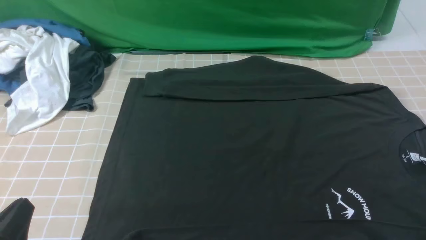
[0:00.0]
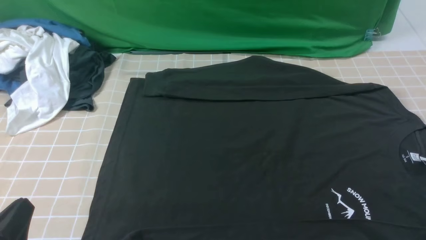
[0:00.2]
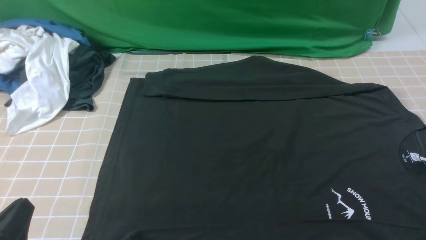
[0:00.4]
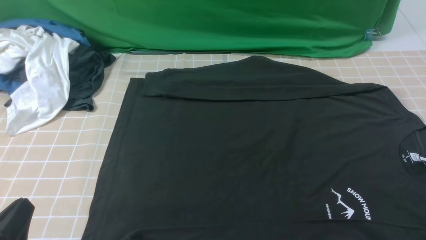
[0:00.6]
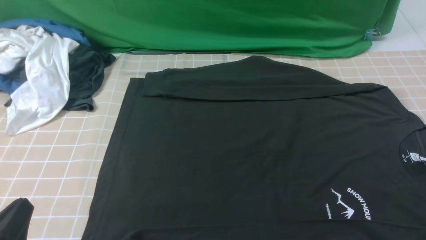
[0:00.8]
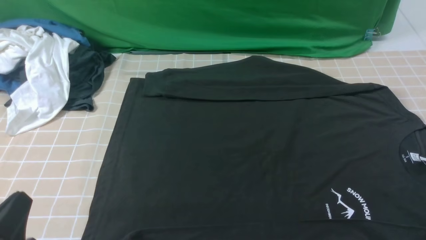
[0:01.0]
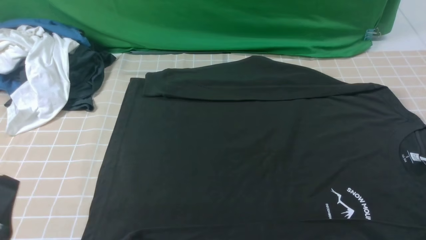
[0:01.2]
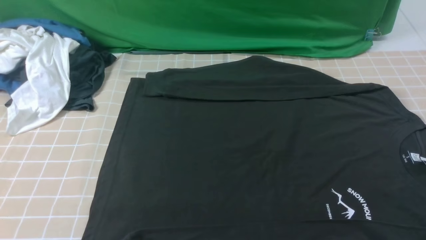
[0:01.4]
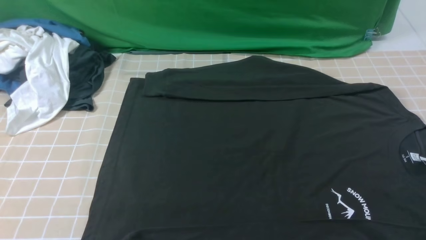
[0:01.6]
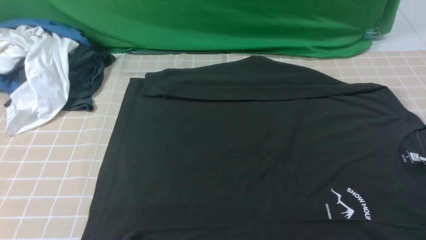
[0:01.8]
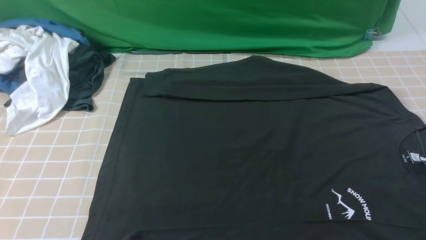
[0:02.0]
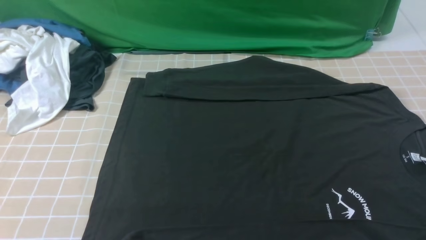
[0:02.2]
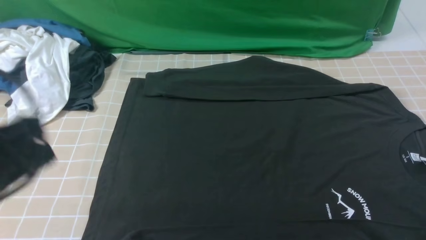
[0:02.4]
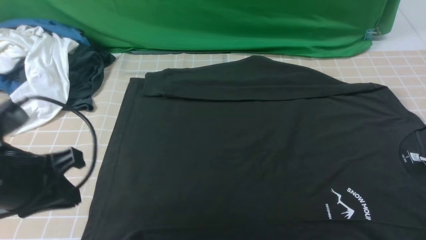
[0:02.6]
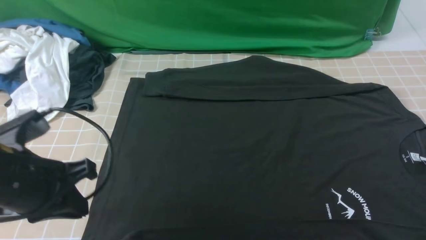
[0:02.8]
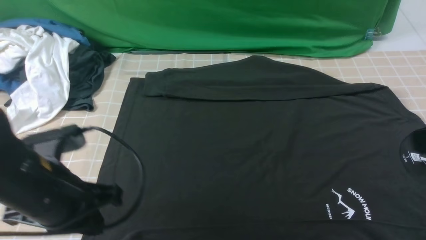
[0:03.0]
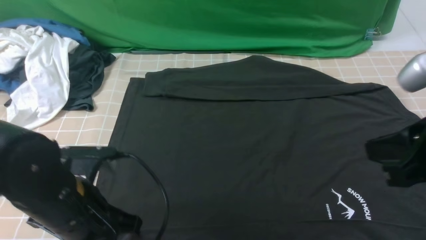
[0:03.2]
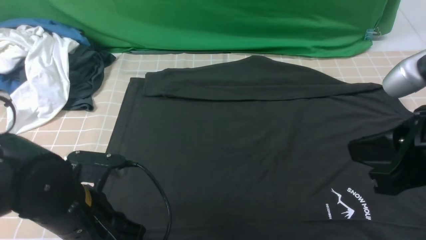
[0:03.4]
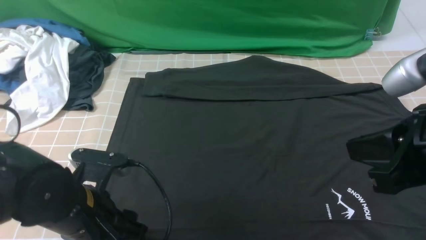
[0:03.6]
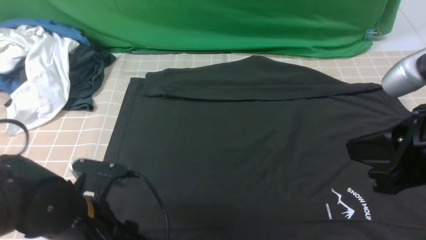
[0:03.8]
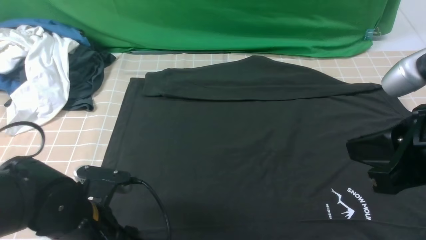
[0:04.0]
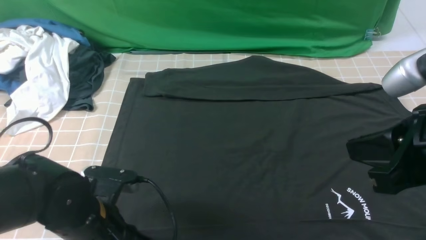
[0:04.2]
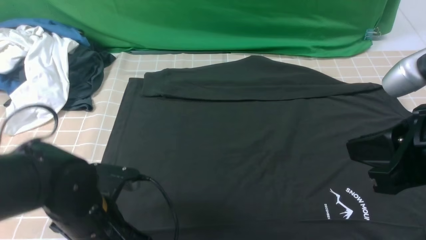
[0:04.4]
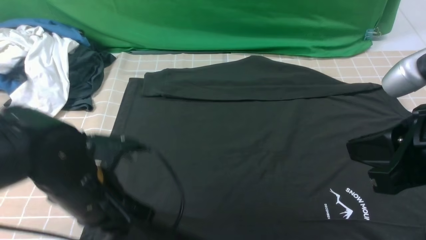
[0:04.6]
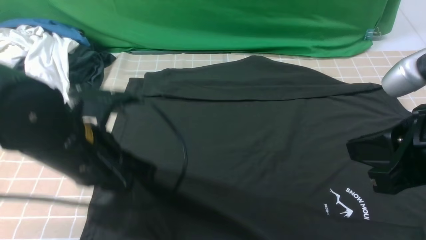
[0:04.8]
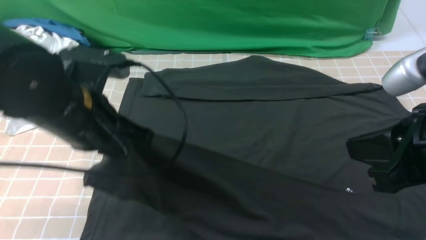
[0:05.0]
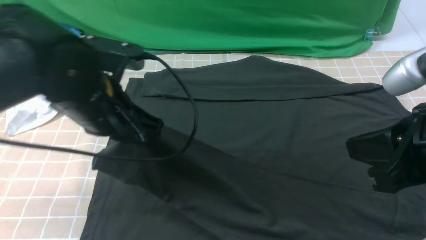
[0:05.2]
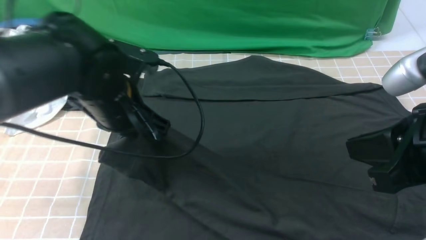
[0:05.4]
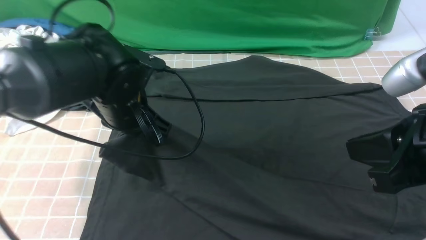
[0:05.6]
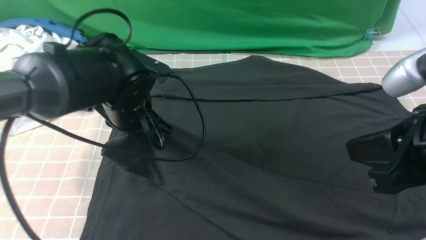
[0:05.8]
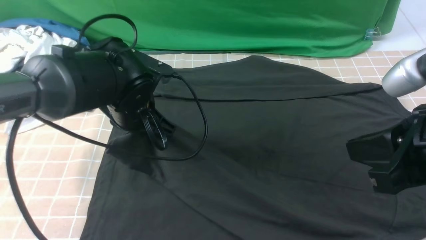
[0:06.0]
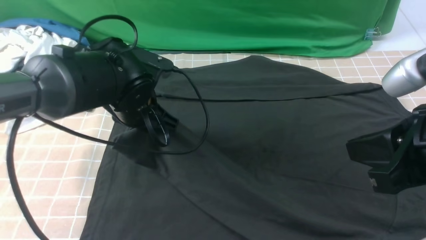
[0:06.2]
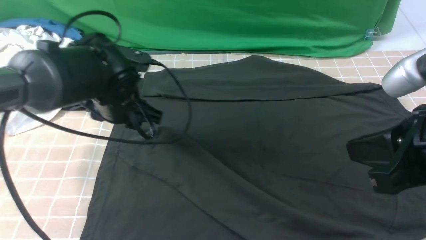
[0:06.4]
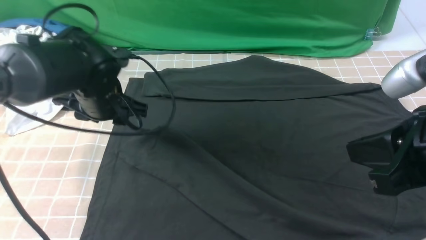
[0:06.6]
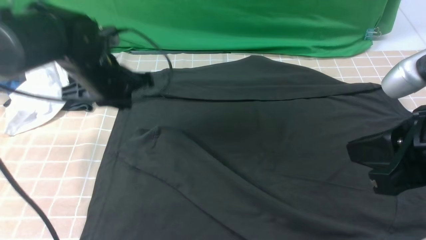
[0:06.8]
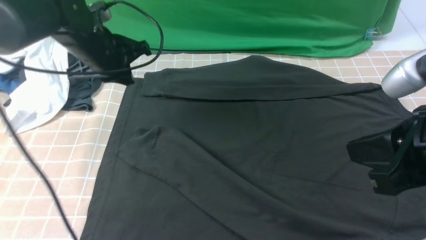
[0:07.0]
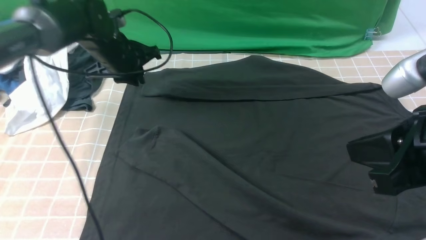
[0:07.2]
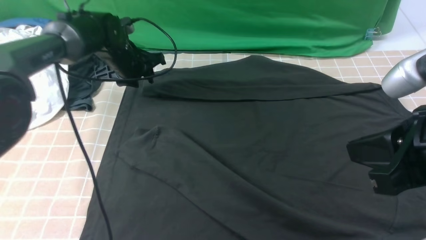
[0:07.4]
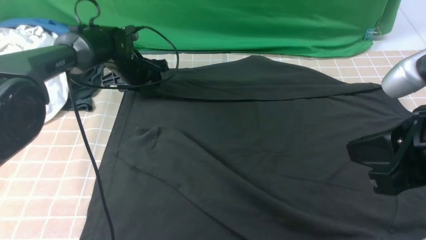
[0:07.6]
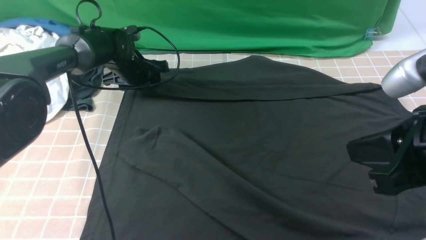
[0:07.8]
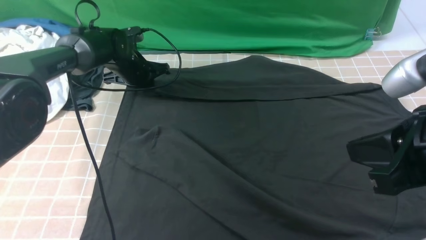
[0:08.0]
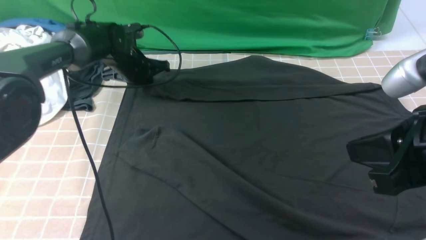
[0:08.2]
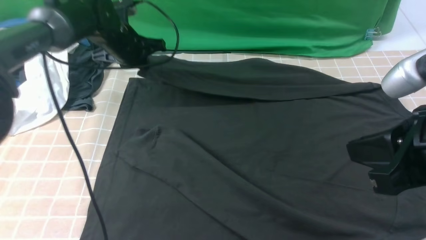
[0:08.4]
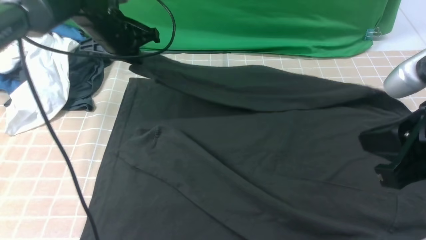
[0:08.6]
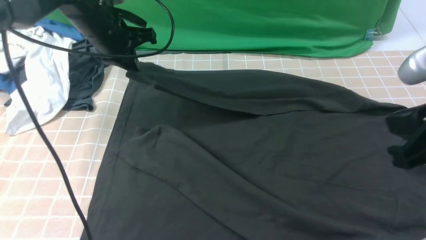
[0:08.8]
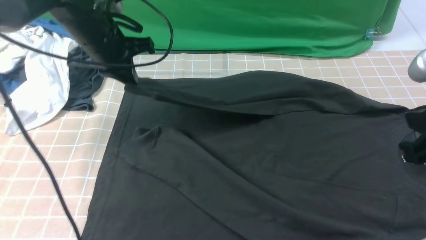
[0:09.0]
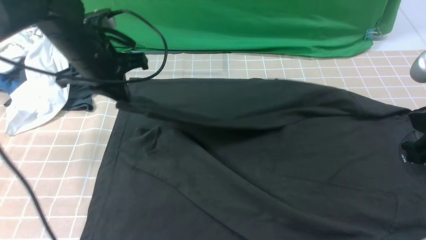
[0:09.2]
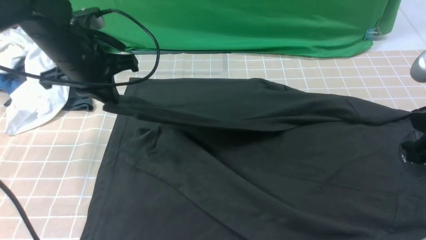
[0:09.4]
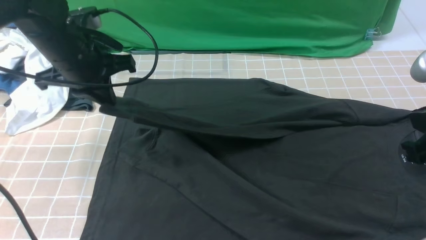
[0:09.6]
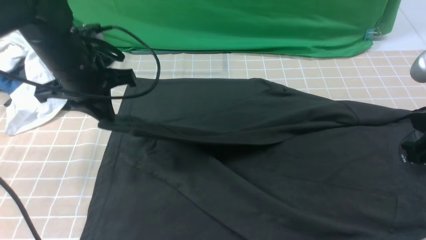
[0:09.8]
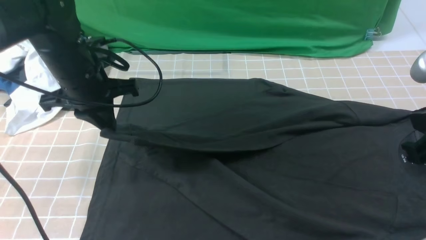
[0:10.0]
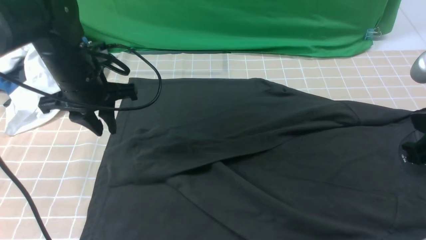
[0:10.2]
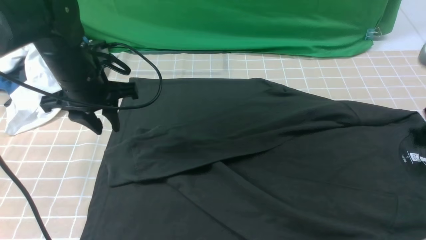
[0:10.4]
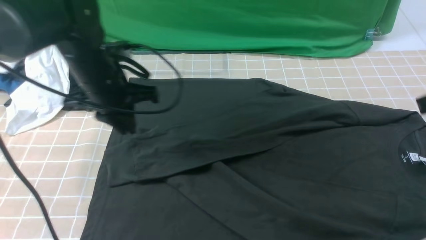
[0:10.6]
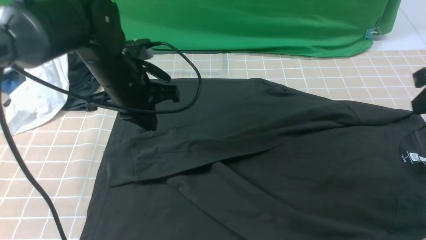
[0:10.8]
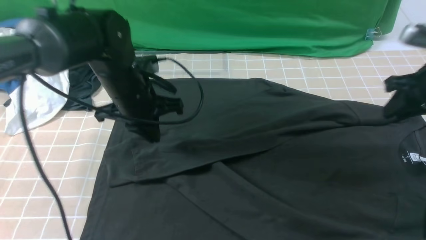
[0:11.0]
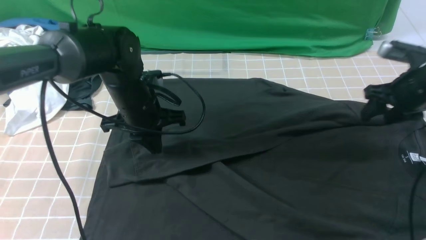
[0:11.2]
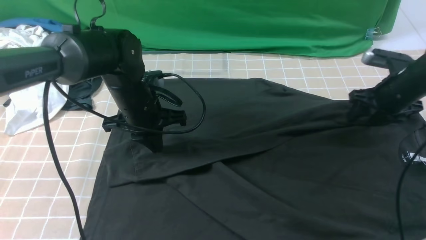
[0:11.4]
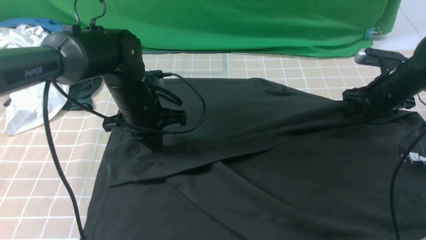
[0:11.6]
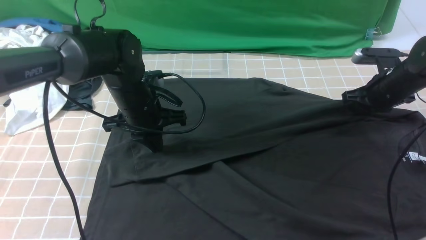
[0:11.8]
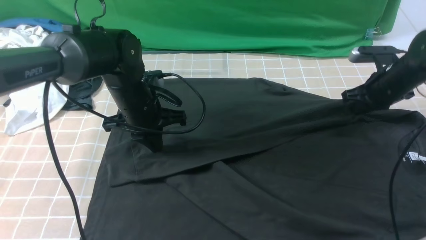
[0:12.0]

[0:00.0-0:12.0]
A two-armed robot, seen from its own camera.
Step, 0.0 to 4.4 s: use the left arm to clamp the cuff closest to it.
Step, 4.6 to 6.2 s: use the left arm to drag and place the cuff at the centered position on the left edge of the fabric.
Step, 6.6 to 8.2 s: use the left arm to clamp the cuff farthest from it.
Step, 8.4 to 10.4 s: use the left arm to drag and drop the cuff onto the cuff closest to the left arm.
1.6 to 3.0 s: The left gripper shifts some 15 cm forward and to the right.
3.0 to 4.4 s: The left gripper heads downward, covering some 5 cm, and opens, then closes again.
4.4 to 6.0 s: The left gripper moves forward, some 15 cm.
6.0 to 7.6 s: The left gripper travels forward by roughly 15 cm, and opens its fingers.
7.6 to 9.0 s: The left gripper heads upward and backward, covering roughly 15 cm, and closes its fingers.
9.0 to 10.4 s: The left gripper ends up roughly 5 cm from where it was.
10.4 to 12.0 s: The right gripper moves forward and downward, approximately 30 cm, and opens and closes again; the left gripper travels downward and to the right by about 10 cm, and closes.

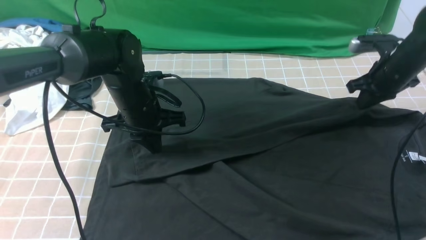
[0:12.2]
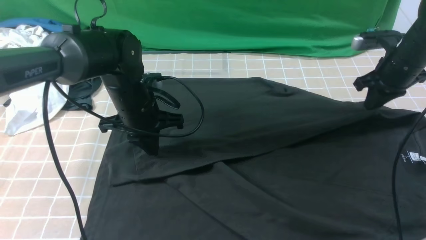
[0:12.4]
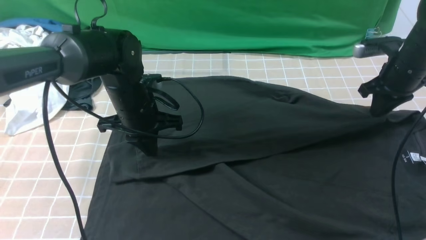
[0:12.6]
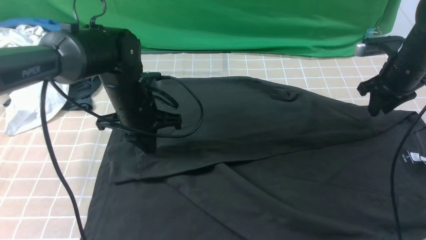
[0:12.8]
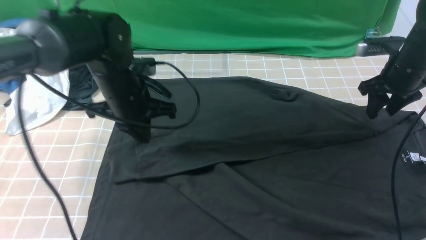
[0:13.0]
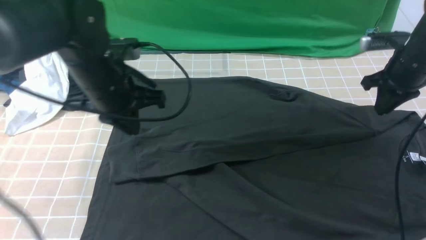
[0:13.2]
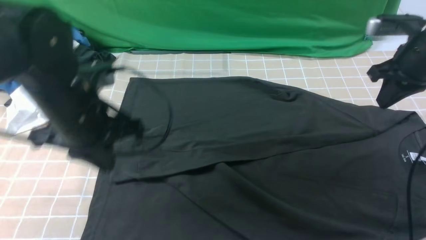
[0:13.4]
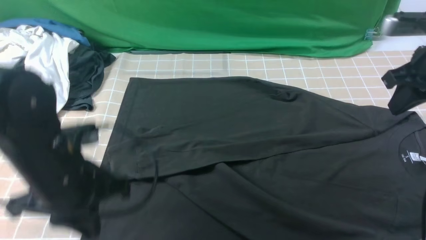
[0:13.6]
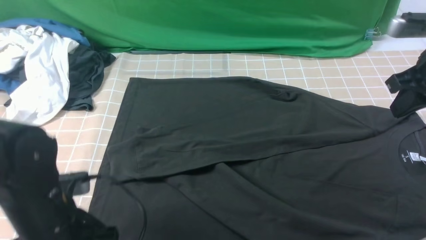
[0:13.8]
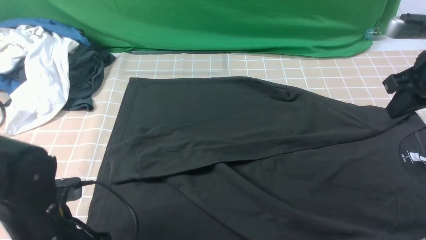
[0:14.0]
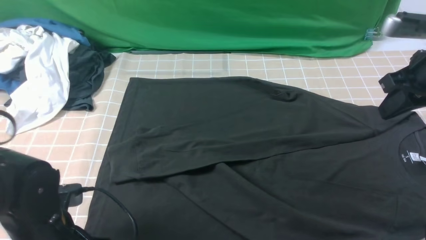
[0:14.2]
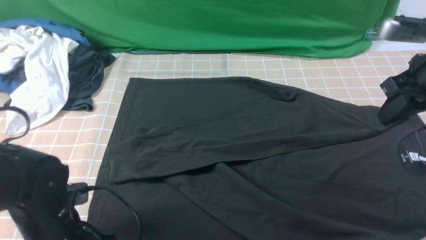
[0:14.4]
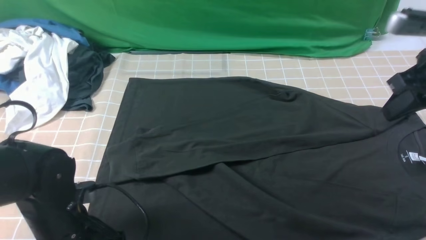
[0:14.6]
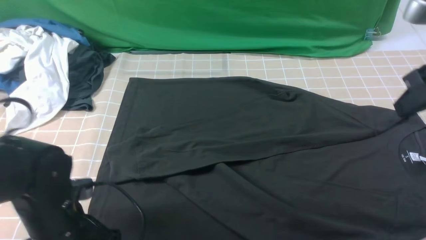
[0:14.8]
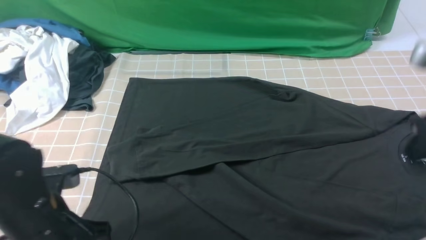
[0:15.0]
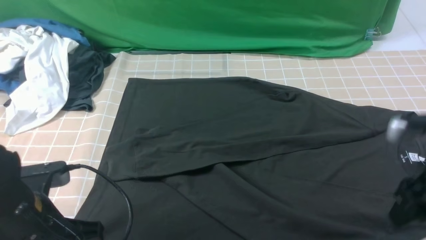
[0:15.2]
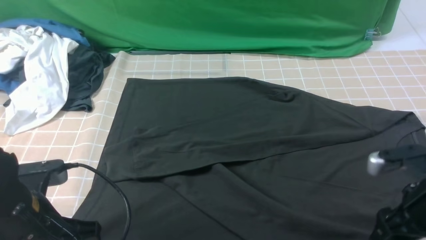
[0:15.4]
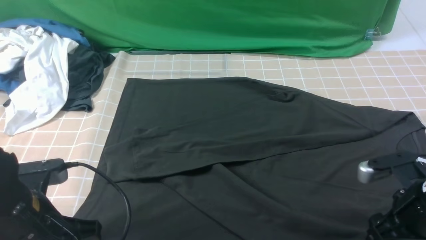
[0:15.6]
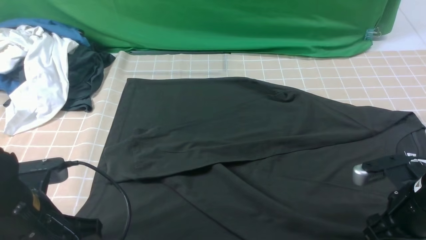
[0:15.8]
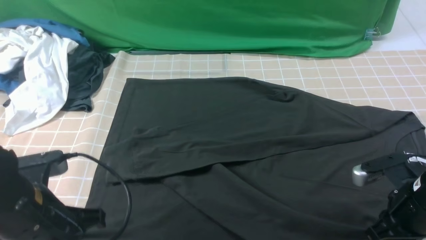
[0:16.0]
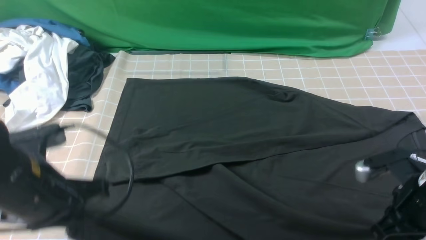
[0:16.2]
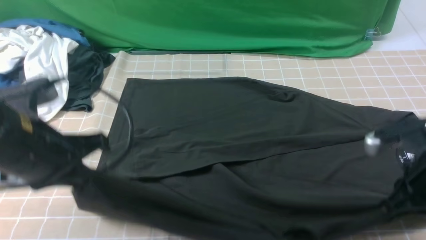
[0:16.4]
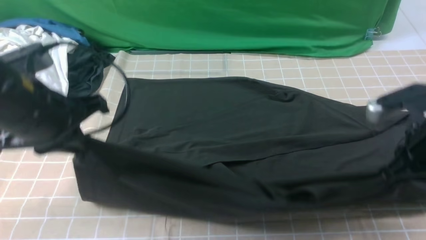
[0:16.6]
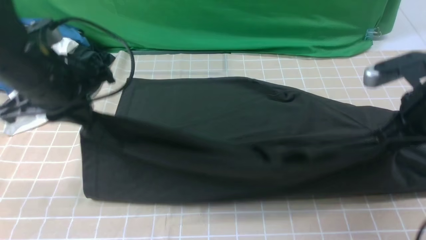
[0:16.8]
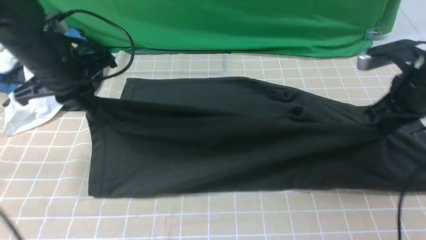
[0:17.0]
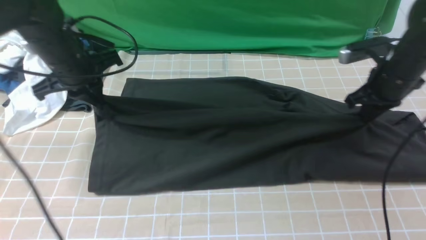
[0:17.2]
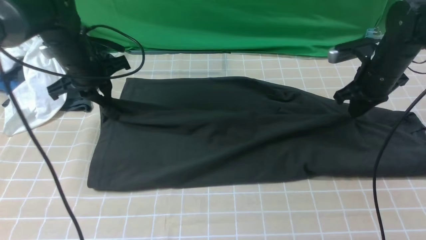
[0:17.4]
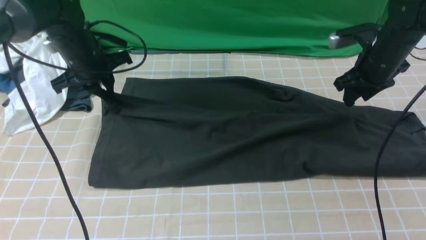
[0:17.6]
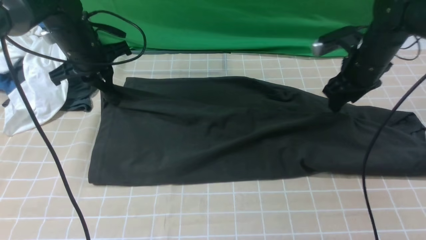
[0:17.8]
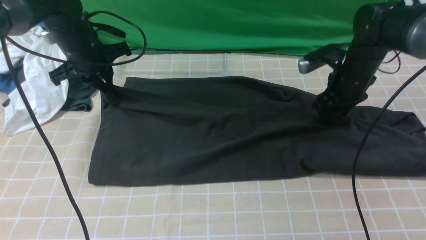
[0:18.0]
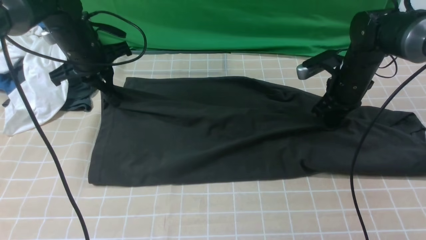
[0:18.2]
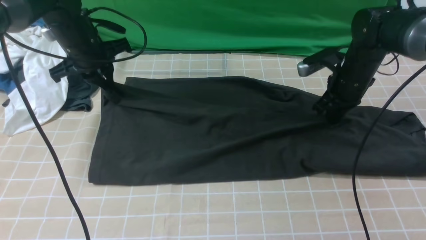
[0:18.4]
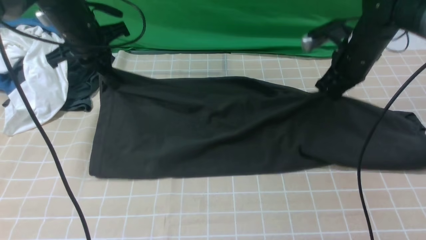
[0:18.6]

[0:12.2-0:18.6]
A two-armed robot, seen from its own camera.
Step, 12.2 to 16.0 s: use both arms simultaneously to clamp the lower edge of the clothing fabric.
12.2 to 13.8 s: The right gripper moves backward and upward, roughly 15 cm, and opens, then closes once more. The left gripper goes approximately 20 cm backward, and opens up.
13.8 to 15.4 s: The left gripper closes; the right gripper travels backward and downward by some 15 cm, and opens up.
15.4 to 17.0 s: The grippers both shift forward by about 15 cm. The right gripper closes its fingers.
17.0 to 18.6 s: The two grippers go roughly 10 cm forward. The right gripper opens and closes again.
